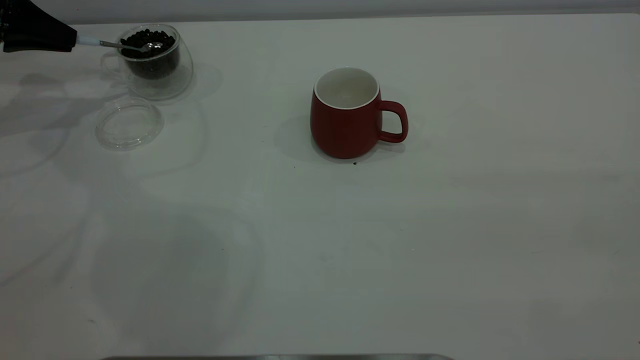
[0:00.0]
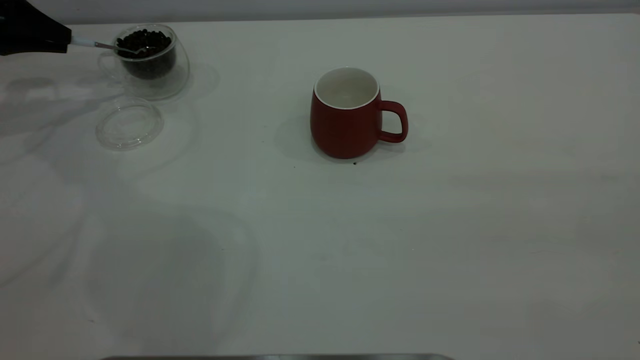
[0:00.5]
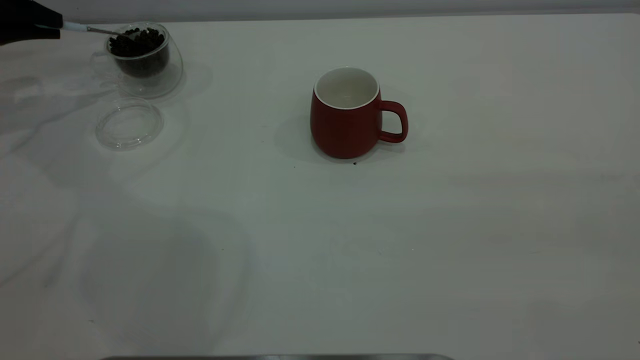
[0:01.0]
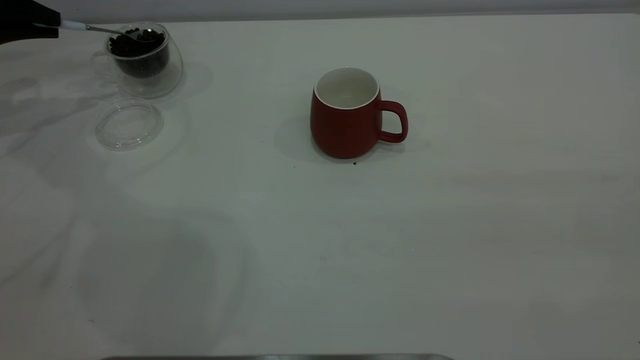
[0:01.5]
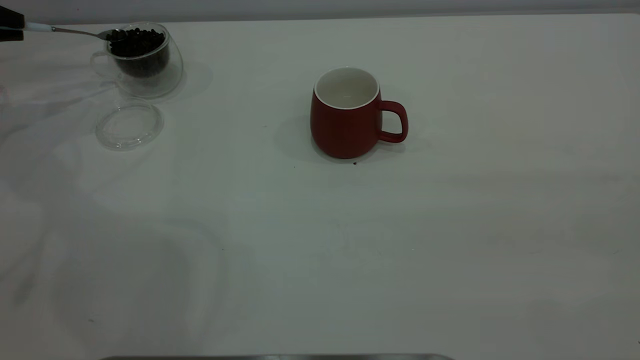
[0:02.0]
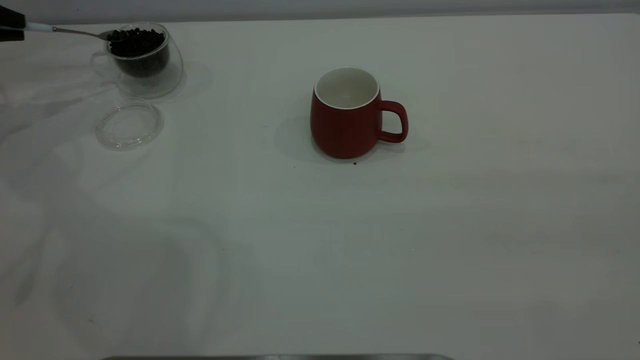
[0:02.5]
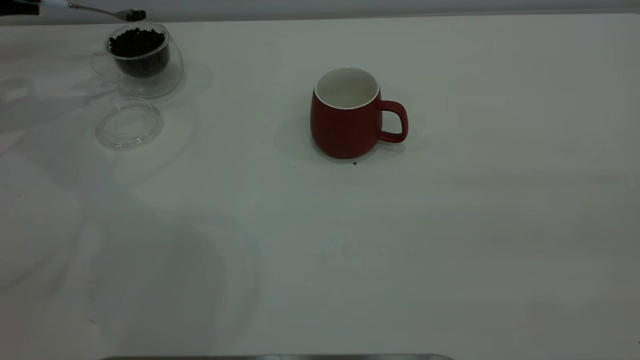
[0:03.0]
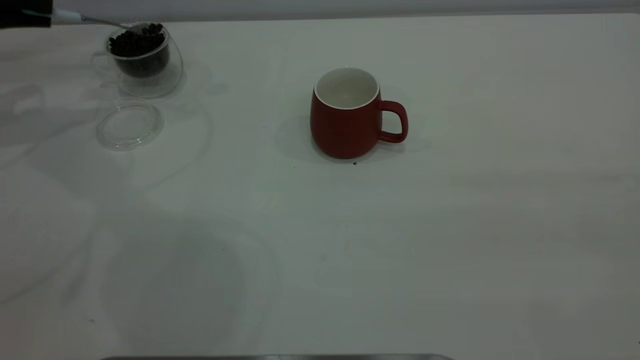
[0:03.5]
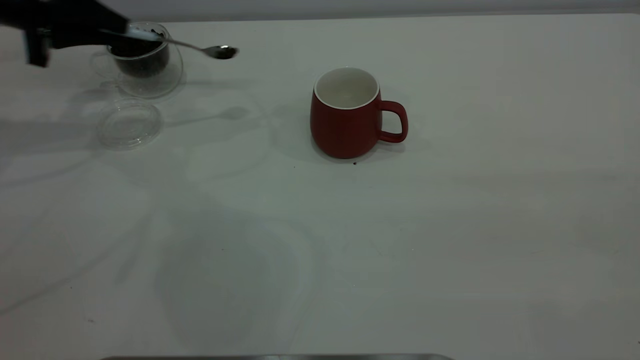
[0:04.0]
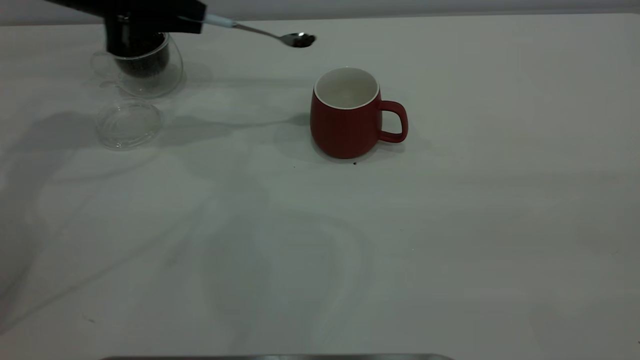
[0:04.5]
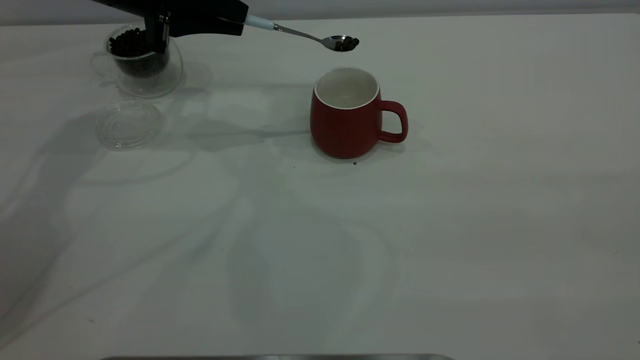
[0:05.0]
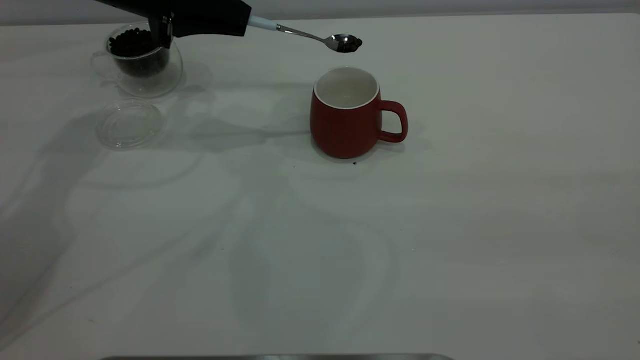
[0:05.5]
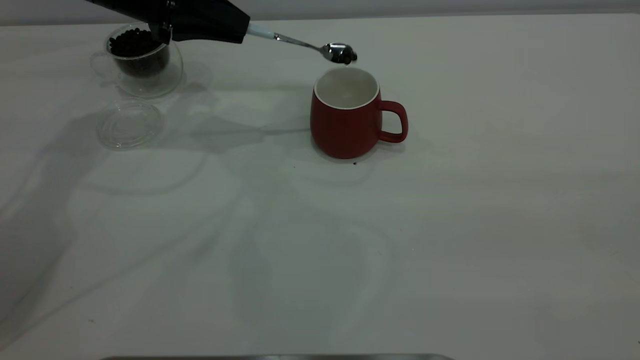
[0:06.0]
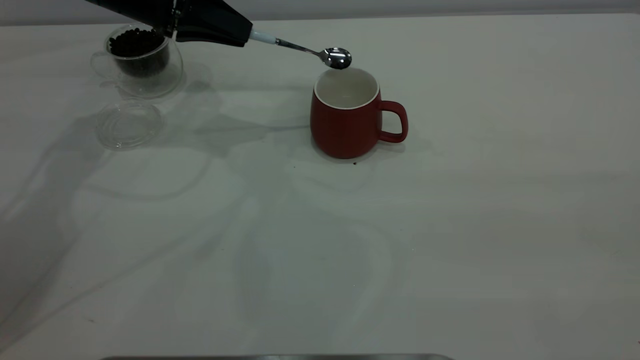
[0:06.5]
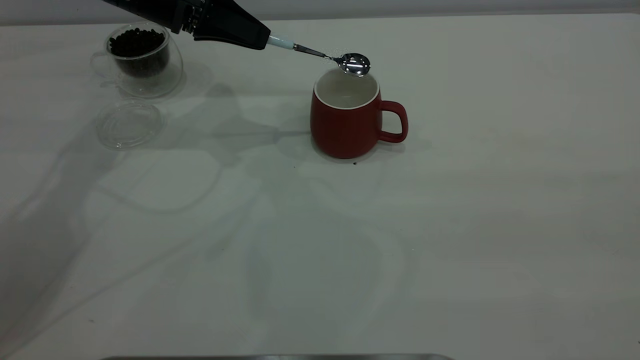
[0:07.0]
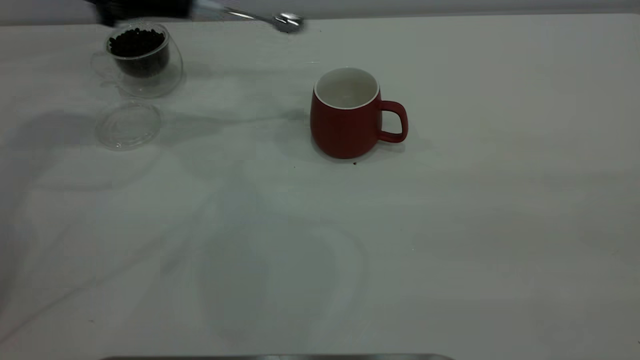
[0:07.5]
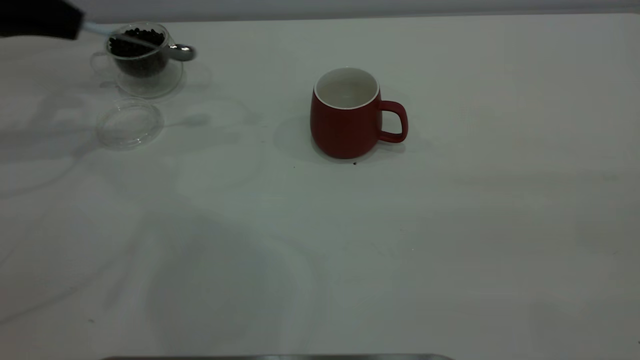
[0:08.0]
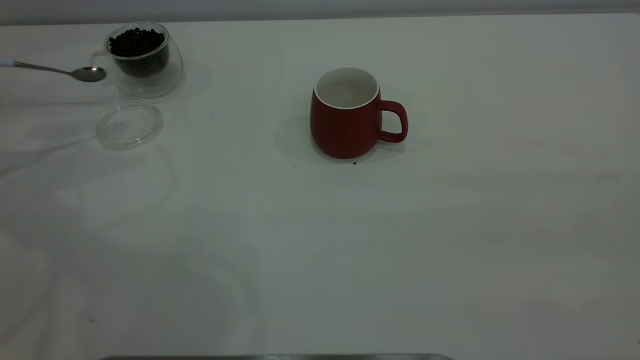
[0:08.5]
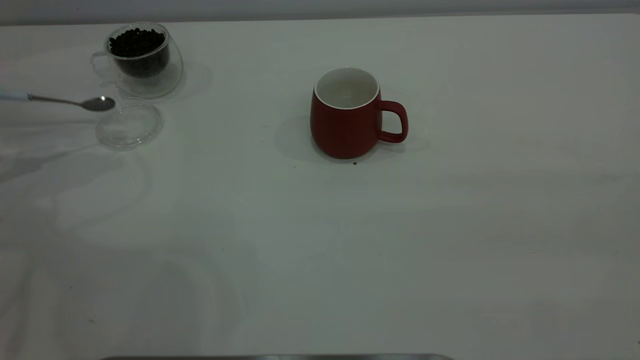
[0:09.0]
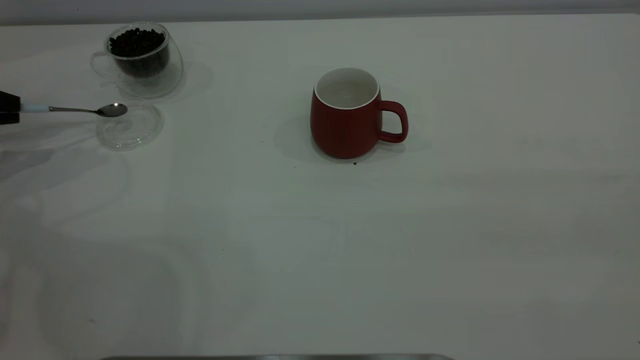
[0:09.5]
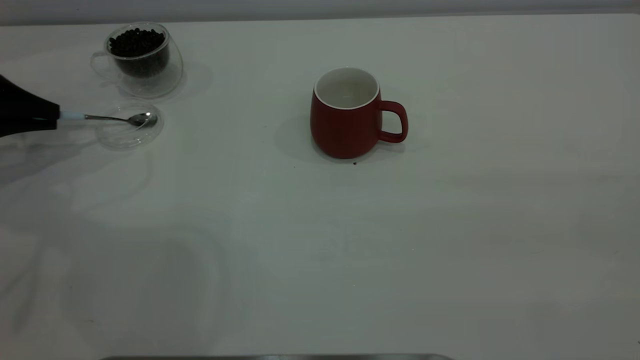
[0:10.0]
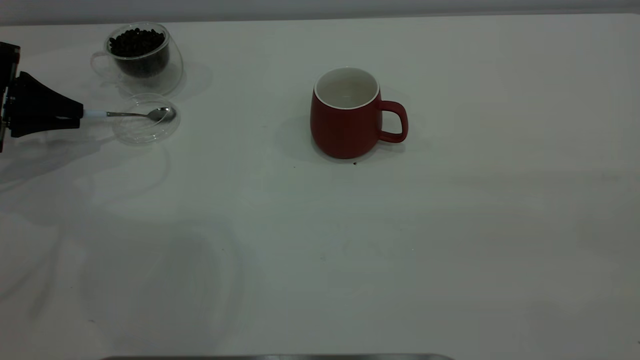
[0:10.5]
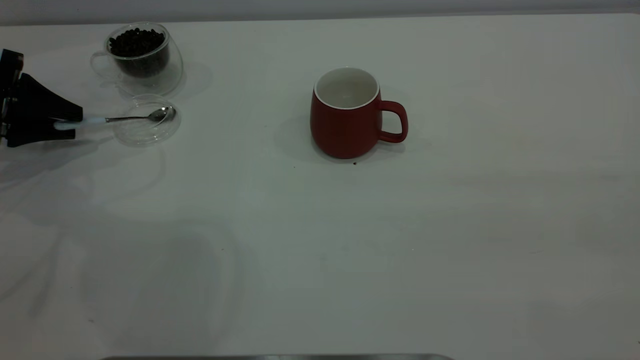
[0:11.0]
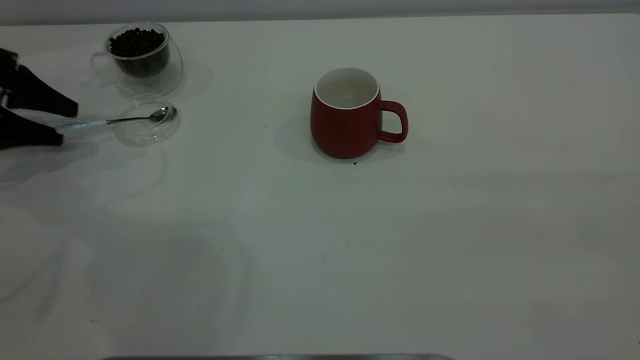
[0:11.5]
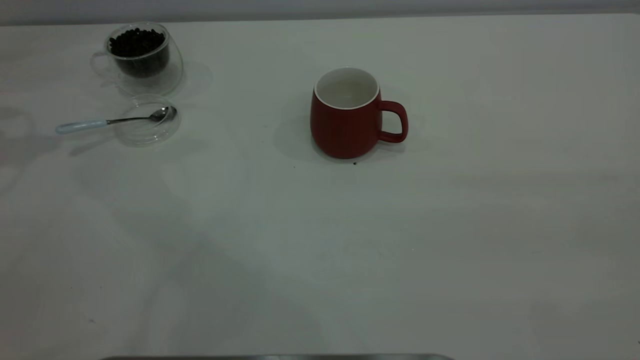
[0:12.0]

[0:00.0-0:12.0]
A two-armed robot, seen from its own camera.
Task of the whole recording: the right gripper place the red cup in the center of the table, the left gripper take the blue spoon from the cup lid and scoop out the coffee beans from the coffee cup and put them into the red cup, the left gripper put the spoon back into the cup lid.
Step, 0:00.0 to 0:07.0: Scoop a spoonful of beans into the cup.
Step, 0:07.5 to 0:11.5: Place the spoon back in its original place.
0:00.0 to 0:02.0: The left gripper is displaced to the left by some 5 cm.
0:02.0 to 0:04.0: The left gripper shifts roughly 15 cm to the right.
0:04.0 to 0:06.0: The left gripper is displaced to the right by approximately 10 cm.
0:06.0 to 0:08.0: The left gripper shifts some 20 cm to the left.
0:08.0 to 0:10.0: The left gripper moves downward, about 10 cm.
0:10.0 to 0:12.0: The left gripper goes some 20 cm upward, and opens.
